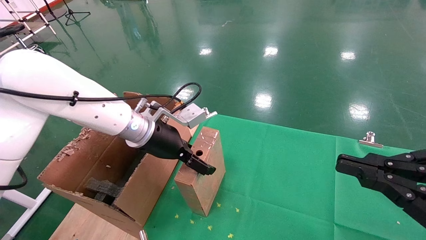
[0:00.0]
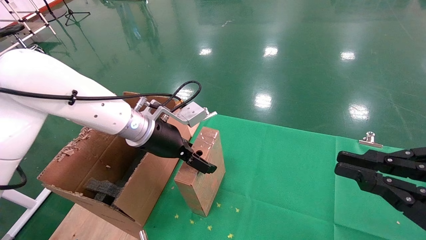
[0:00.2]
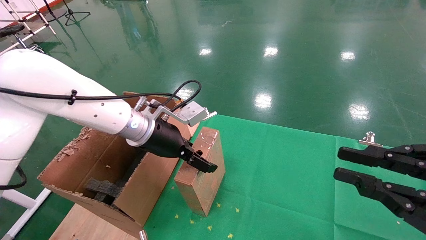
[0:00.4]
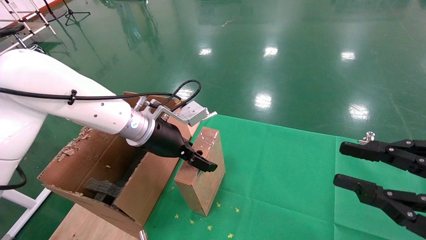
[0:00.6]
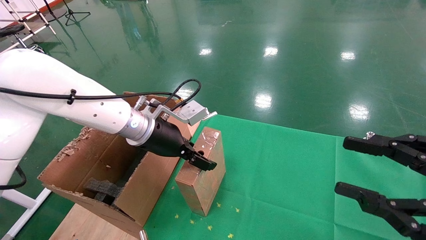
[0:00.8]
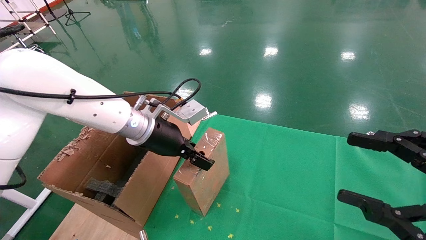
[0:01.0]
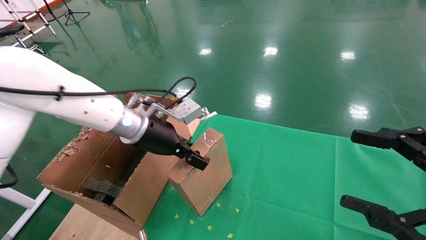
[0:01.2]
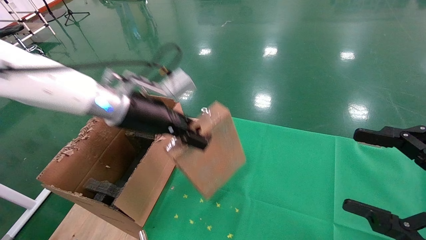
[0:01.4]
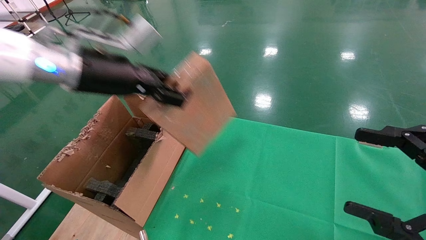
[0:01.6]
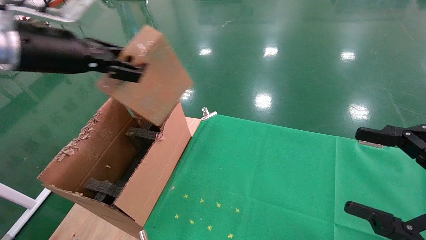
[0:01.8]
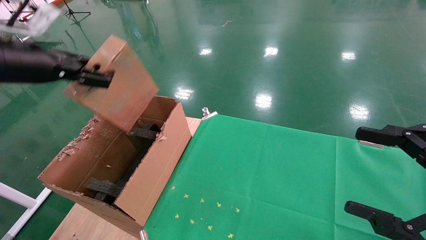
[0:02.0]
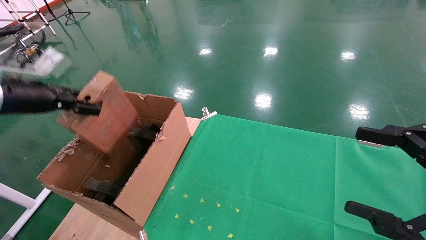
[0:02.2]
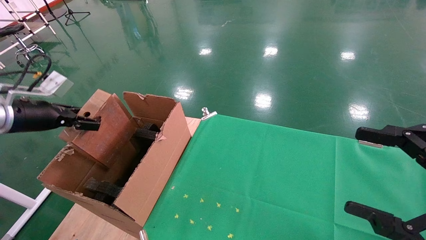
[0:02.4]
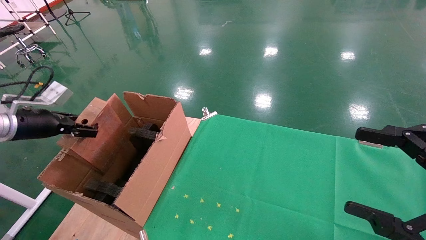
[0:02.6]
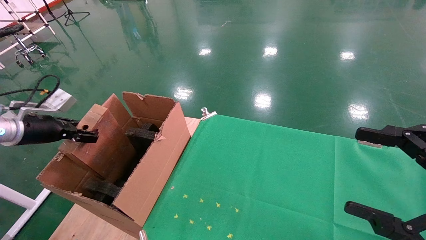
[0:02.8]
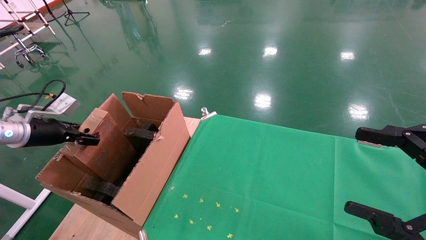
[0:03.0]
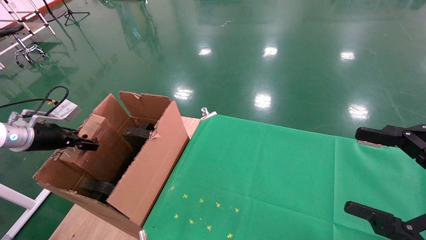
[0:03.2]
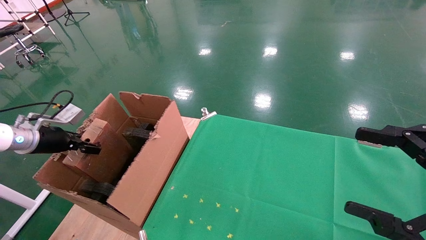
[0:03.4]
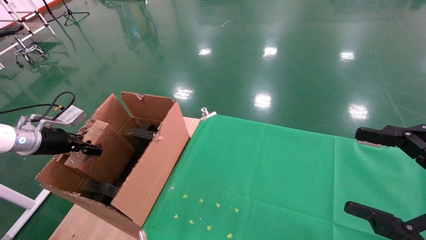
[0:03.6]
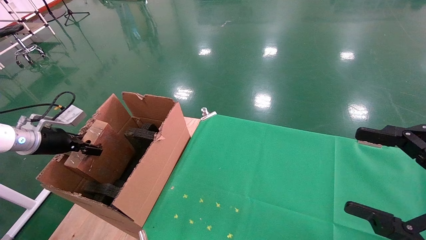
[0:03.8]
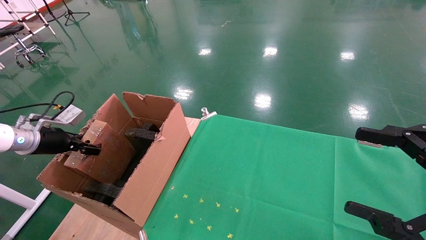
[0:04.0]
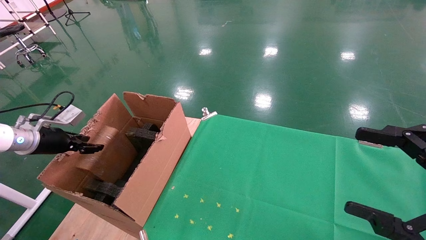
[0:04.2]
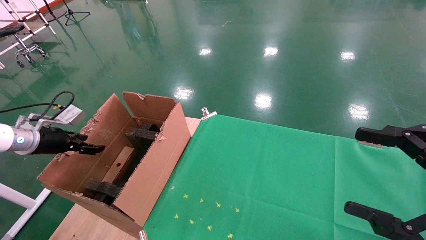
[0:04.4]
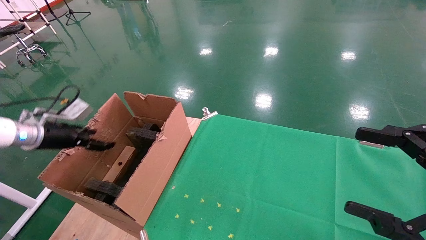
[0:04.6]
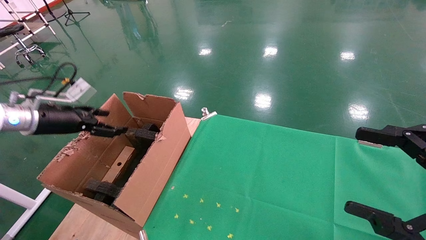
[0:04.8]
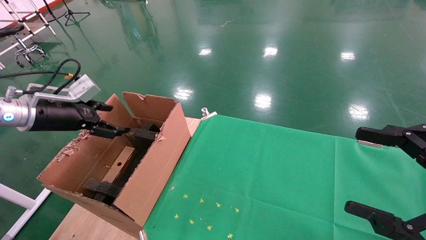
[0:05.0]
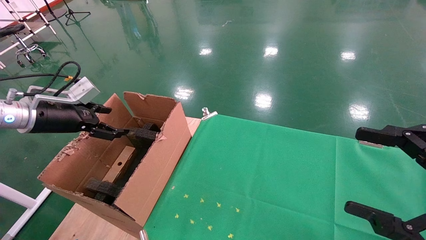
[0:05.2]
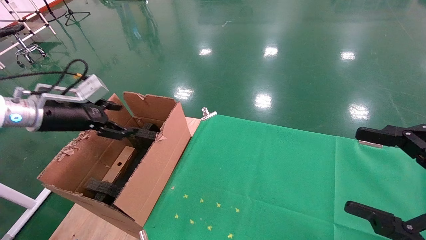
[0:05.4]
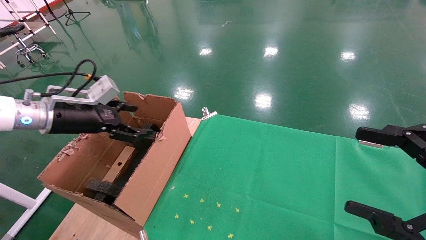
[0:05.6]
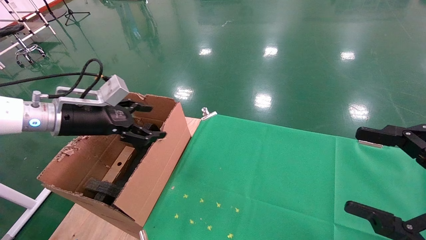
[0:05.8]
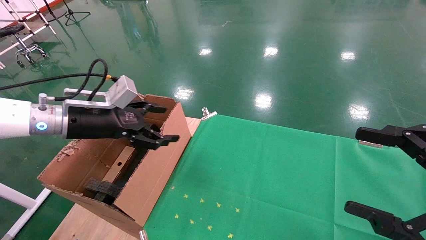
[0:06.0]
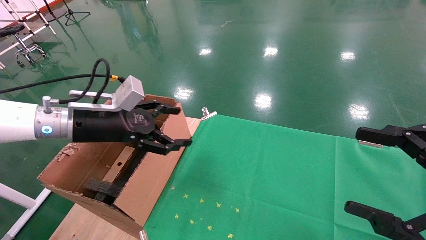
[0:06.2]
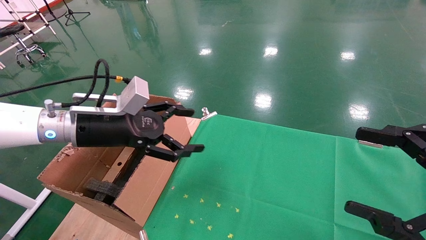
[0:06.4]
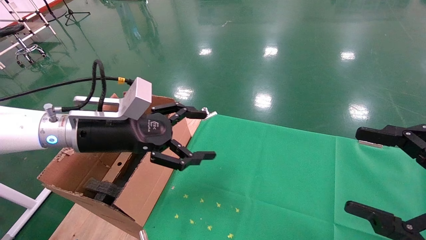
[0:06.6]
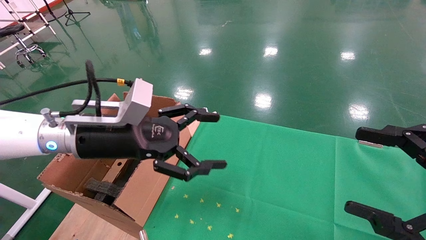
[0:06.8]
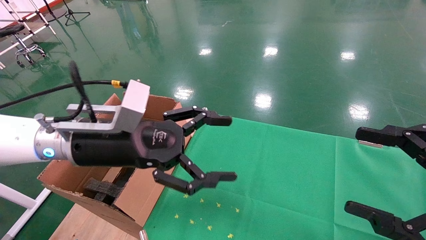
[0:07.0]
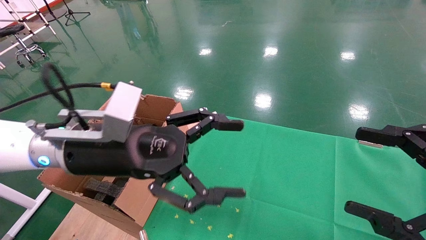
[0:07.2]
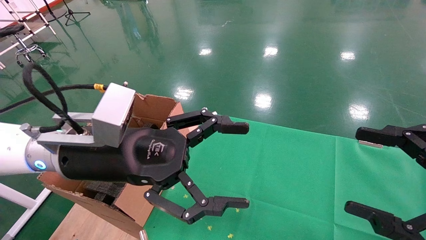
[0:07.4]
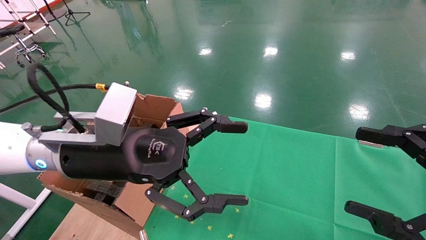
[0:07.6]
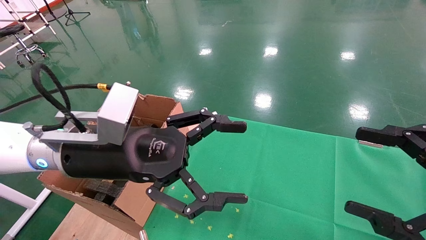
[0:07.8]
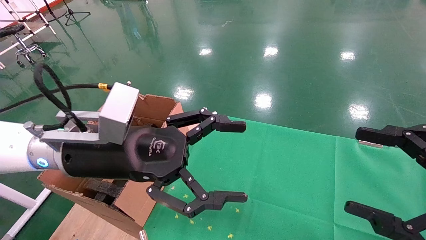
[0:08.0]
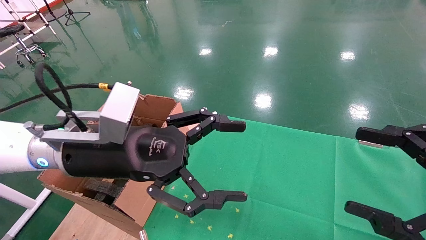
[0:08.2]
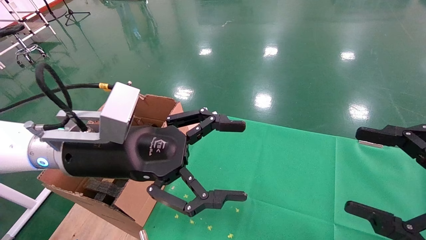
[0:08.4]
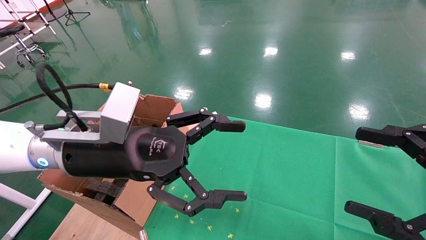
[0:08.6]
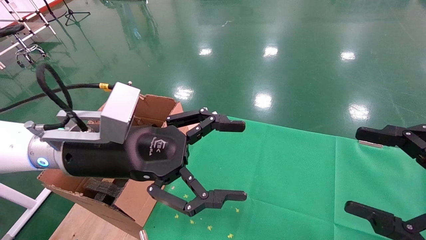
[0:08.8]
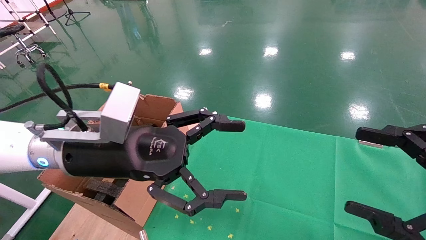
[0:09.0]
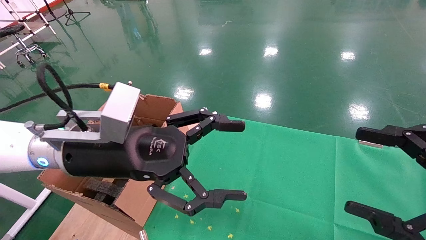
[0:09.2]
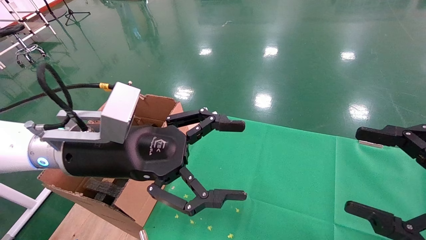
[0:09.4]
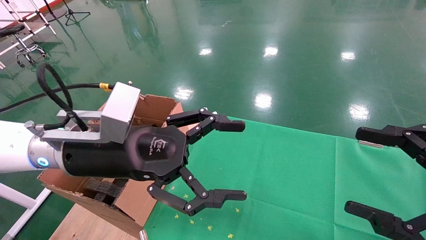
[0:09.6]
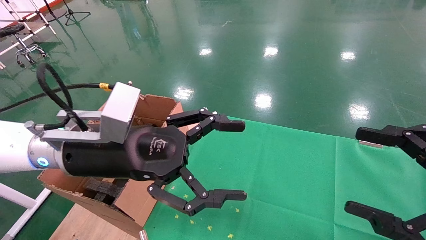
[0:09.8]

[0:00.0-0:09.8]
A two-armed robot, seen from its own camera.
Task of the whole recording: using a robotic arm to pick up a cardboard box and palace it the carton.
Step, 0:01.2 to 0:05.0: Place the mouse and the power cord paper box into the container.
0:00.0 to 0:01.4: The left gripper shifts approximately 10 cm upward, and closes. The right gripper opens up.
0:01.4 to 0:02.8: The left gripper travels to the left by some 30 cm.
0:02.8 to 0:04.2: The grippers move only a little.
0:04.2 to 0:05.6: The left gripper goes approximately 15 cm to the right and upward, and opens its fingers.
0:05.6 to 0:07.0: The left gripper heads to the right and backward, covering roughly 15 cm.
0:07.0 to 0:08.4: The grippers make only small movements.
0:08.4 to 0:09.8: Neither gripper changes place.

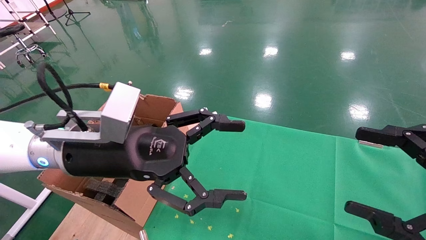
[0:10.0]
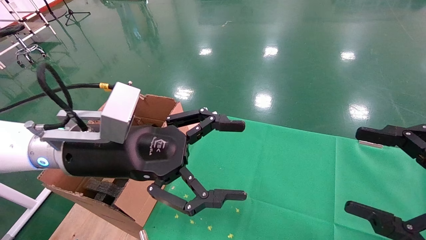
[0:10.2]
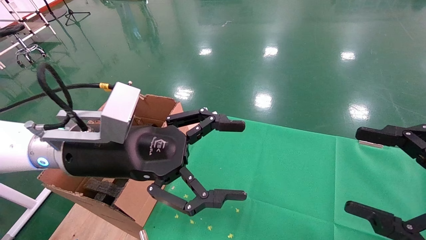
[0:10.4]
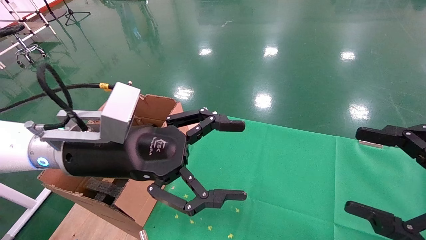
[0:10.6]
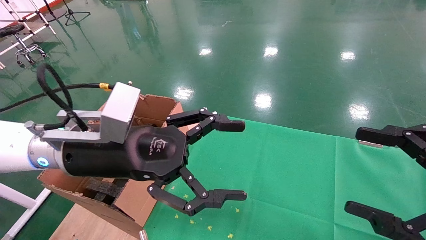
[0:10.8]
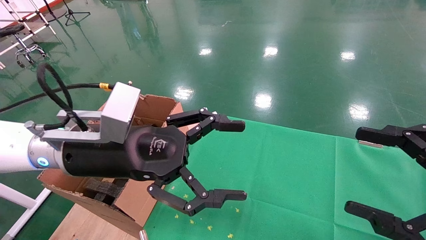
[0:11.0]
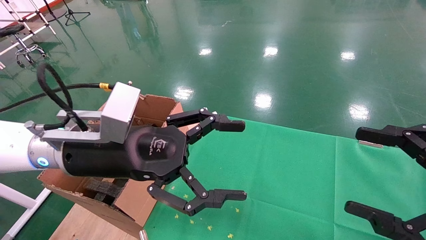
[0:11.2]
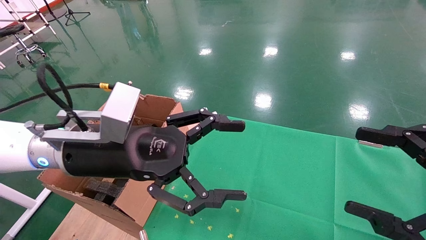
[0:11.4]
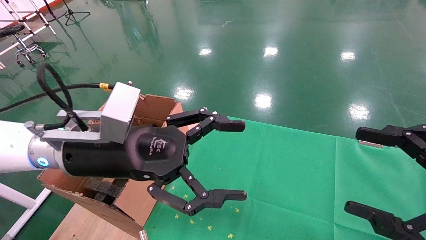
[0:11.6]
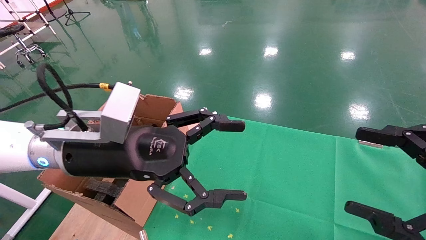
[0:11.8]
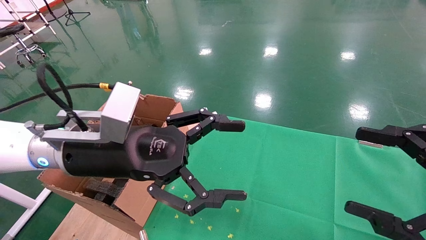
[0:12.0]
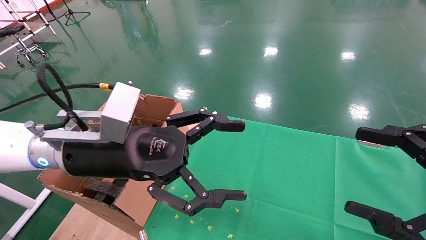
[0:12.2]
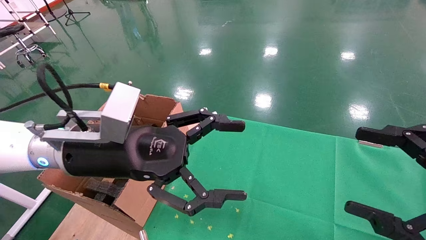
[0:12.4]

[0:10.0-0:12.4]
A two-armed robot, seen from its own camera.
Task of the whole recording: using a robotic arm to pick up a cardboard box and palace it the carton.
0:10.0 to 0:12.4: The two grippers keep their place.

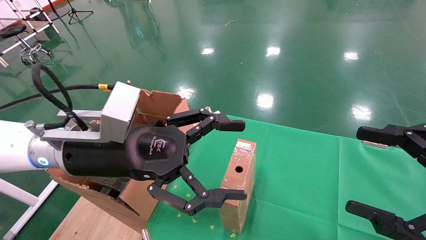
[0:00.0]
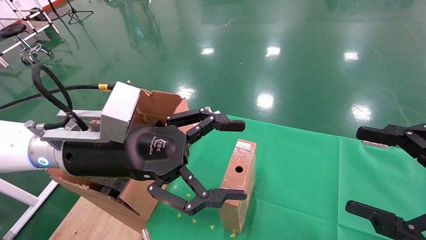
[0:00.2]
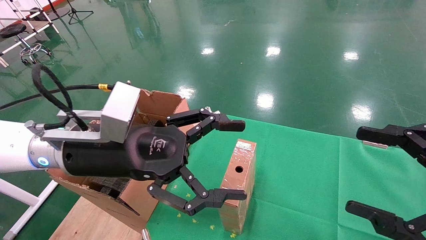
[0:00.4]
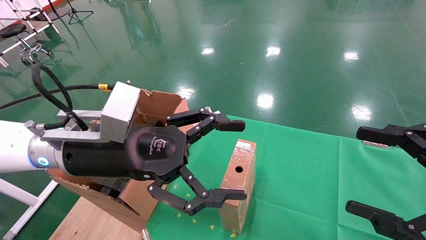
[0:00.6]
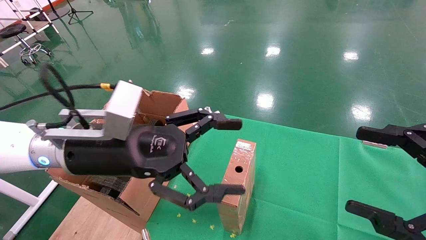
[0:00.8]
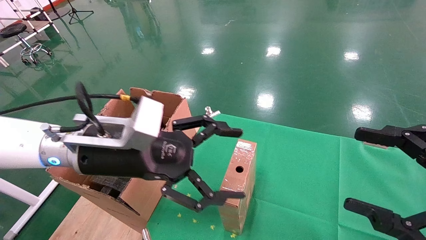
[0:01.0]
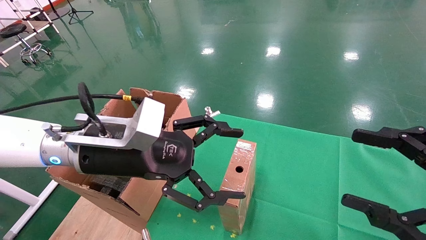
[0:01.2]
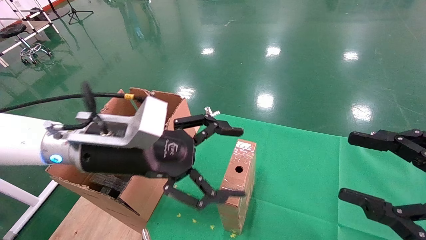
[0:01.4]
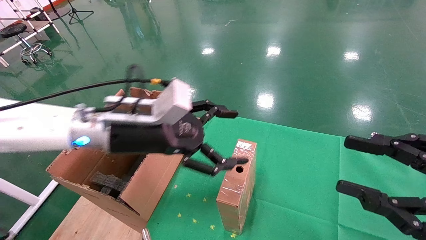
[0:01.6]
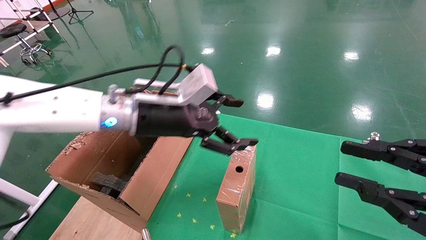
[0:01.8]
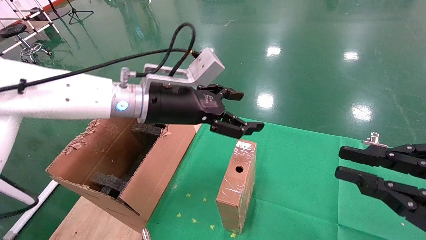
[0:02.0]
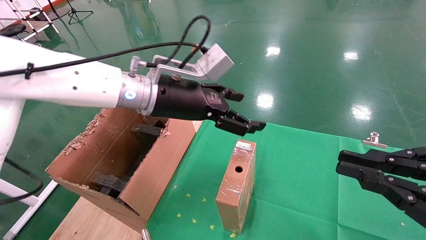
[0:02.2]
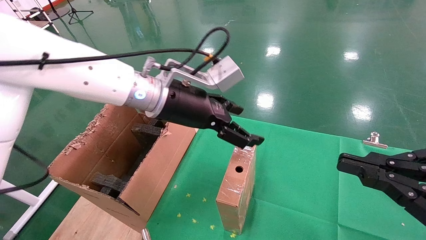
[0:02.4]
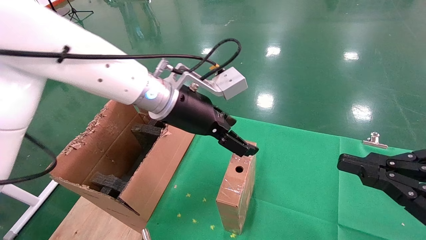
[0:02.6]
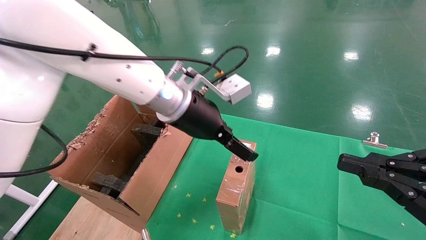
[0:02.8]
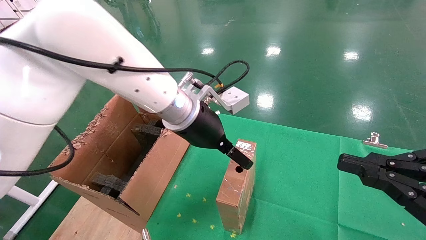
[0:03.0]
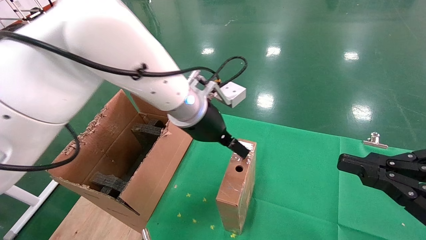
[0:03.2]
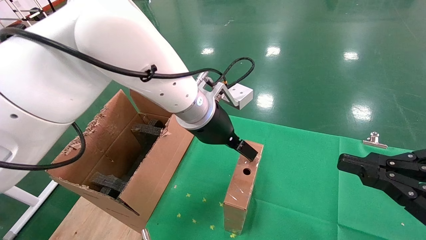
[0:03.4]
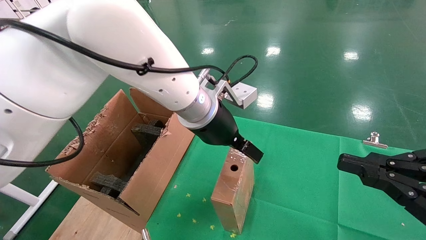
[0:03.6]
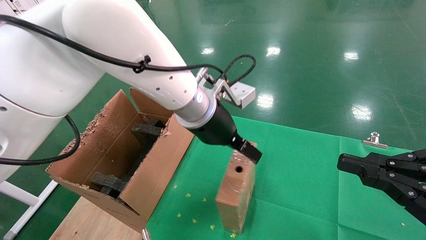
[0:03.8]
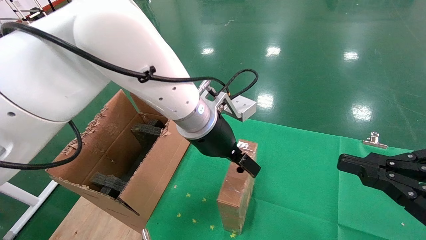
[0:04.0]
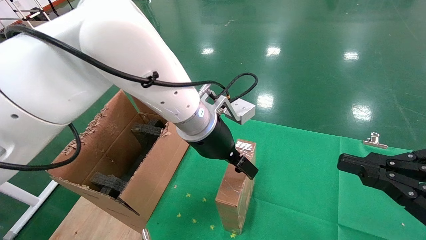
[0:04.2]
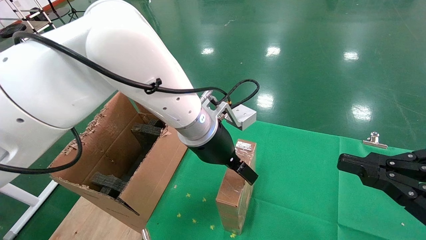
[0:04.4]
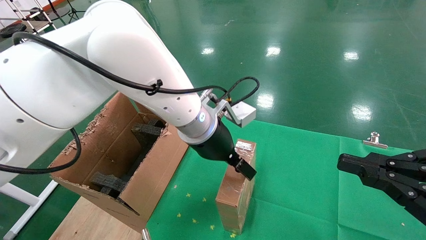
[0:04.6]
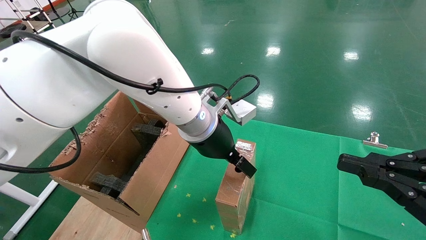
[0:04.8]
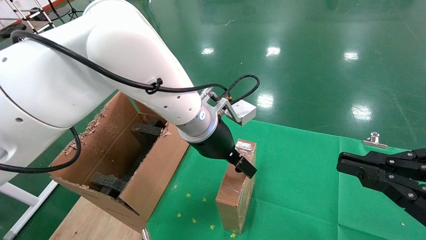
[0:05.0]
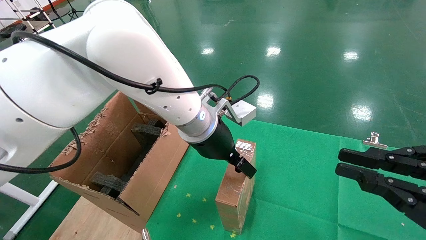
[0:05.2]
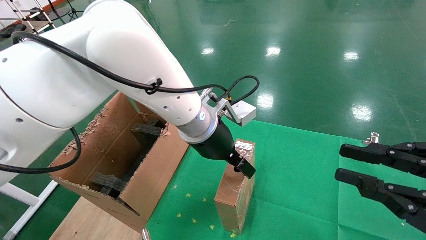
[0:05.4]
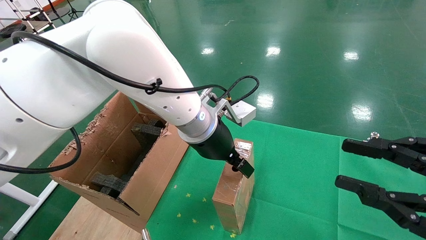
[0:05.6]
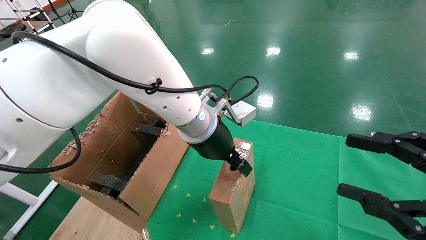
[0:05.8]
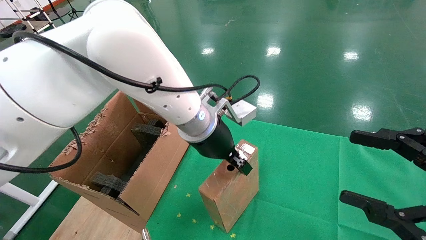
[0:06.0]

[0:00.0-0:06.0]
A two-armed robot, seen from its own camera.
Task of the whole recording: using a robotic arm to pick up a cardboard box and palace it the carton.
0:00.0 to 0:01.6: The right gripper closes; the left gripper goes approximately 5 cm forward.
0:01.6 to 0:03.0: The right gripper closes its fingers; the left gripper heads to the right and forward, covering roughly 10 cm.
0:04.4 to 0:06.0: The right gripper opens its fingers. The left gripper closes its fingers.
